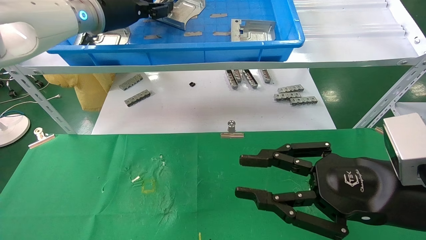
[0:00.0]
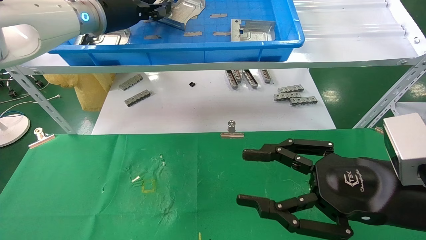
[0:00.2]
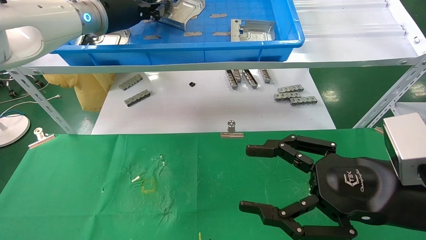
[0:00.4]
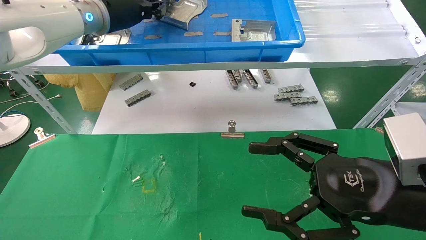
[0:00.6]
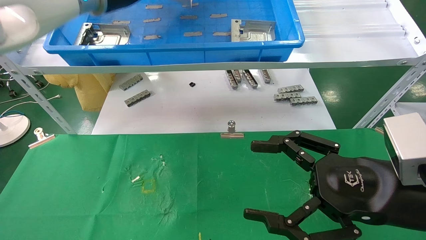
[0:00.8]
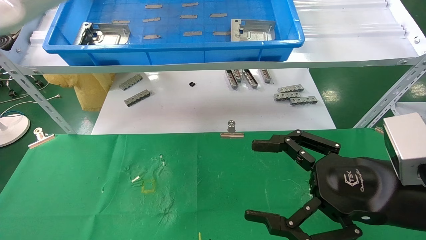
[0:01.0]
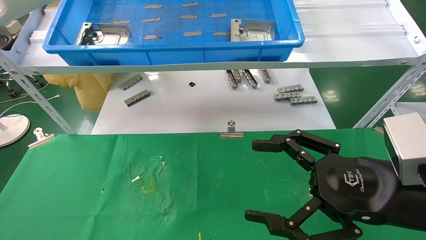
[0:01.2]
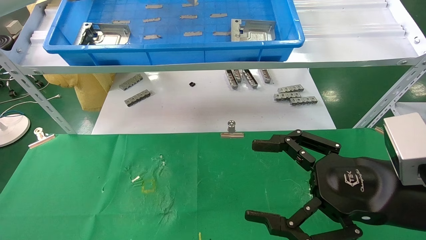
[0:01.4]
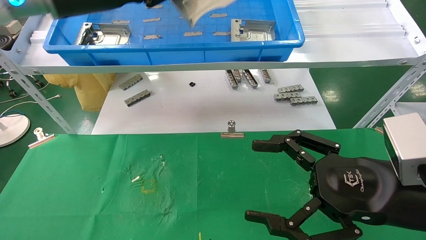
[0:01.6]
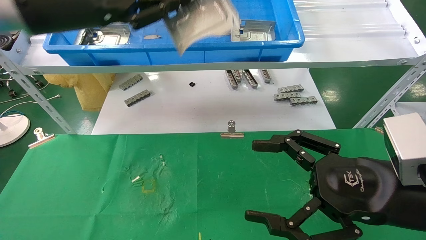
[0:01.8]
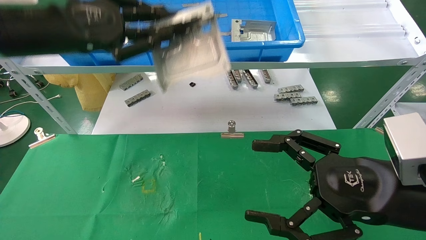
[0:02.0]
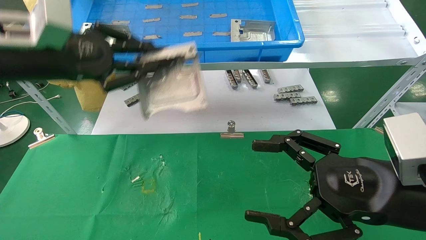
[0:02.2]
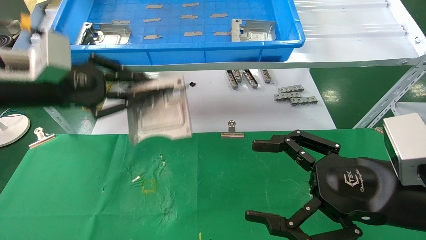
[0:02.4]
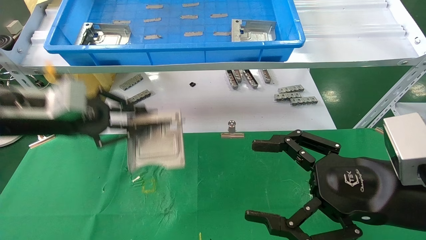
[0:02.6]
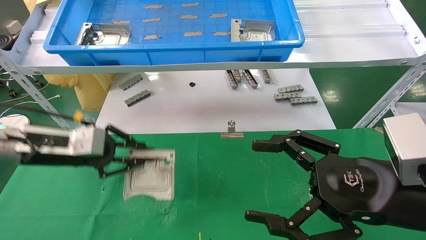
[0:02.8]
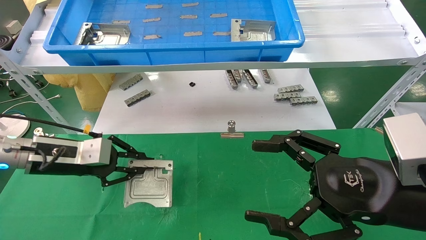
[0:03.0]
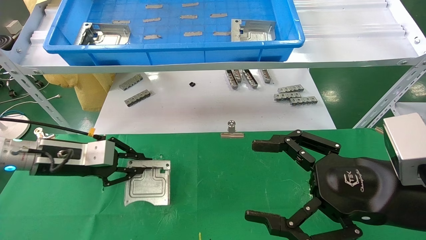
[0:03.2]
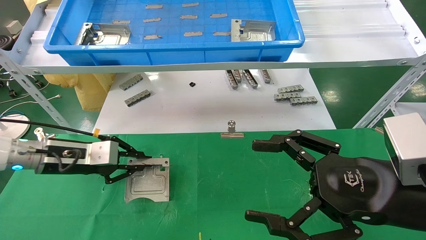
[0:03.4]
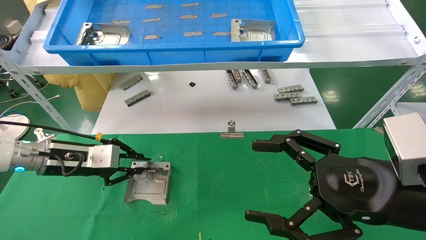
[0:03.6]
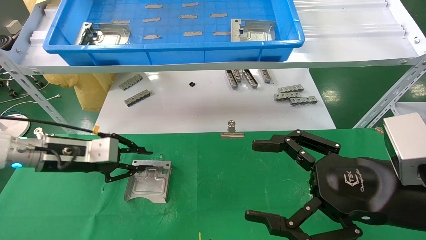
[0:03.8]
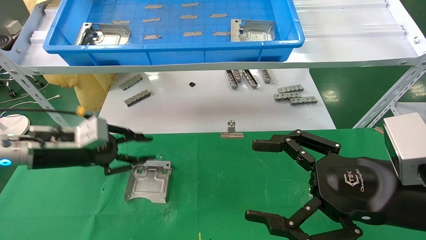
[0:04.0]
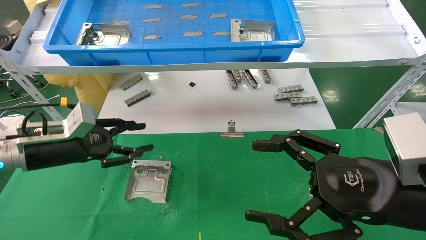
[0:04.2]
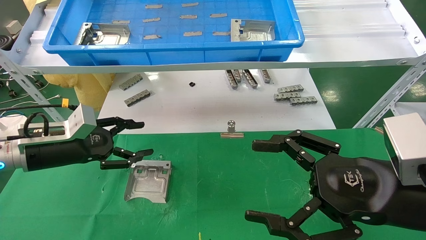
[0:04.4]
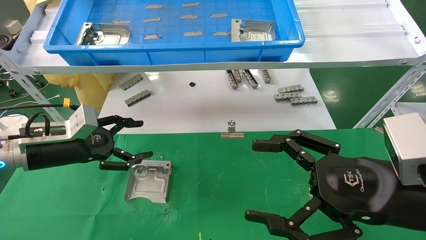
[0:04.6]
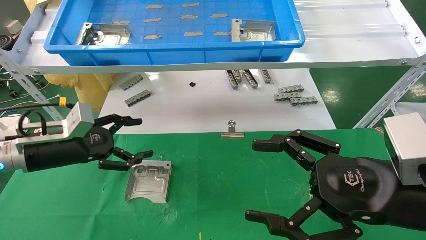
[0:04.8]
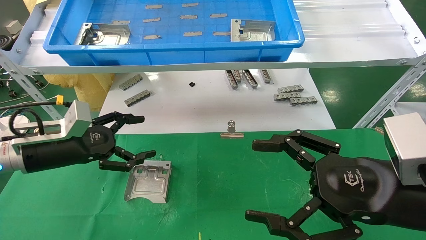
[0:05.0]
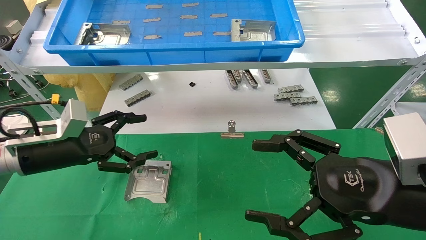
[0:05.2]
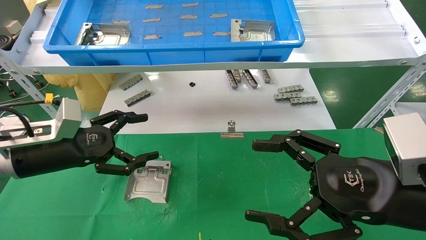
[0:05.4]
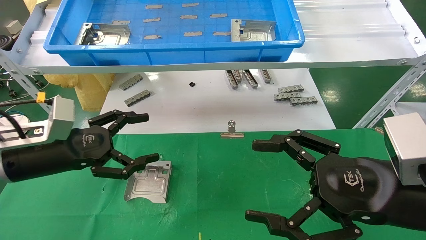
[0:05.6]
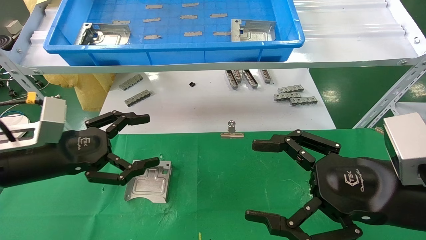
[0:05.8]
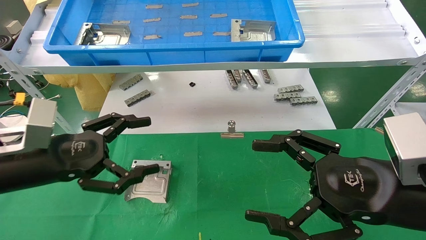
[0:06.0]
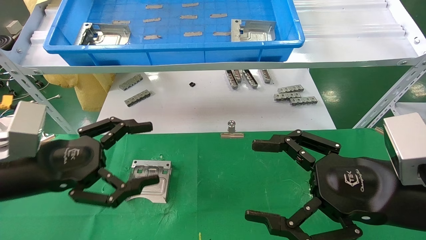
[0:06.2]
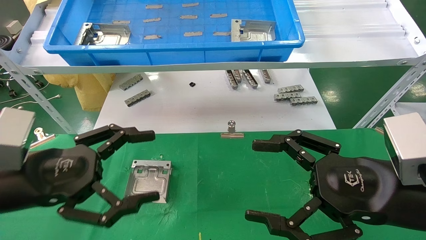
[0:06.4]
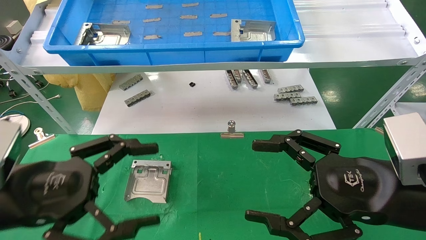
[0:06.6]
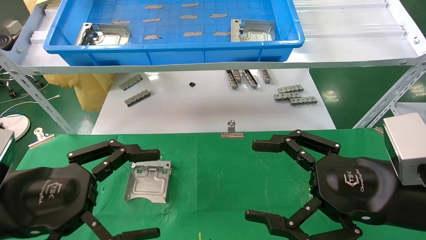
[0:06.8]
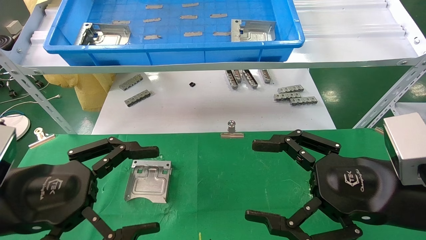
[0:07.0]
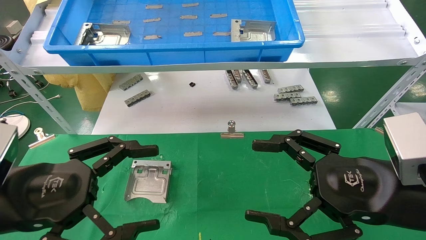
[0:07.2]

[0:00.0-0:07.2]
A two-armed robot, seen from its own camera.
Task of the whole recording: use the mechanical arm to pick up the parts and place them on the table.
Step, 0:00.6 to 0:04.0: Place the hard drive bracket into the box.
0:00.0 to 0:01.4: The right gripper opens its fingers. Meanwhile the left gripper heads backward, covering approximately 5 cm, and closes its fingers.
0:01.4 to 0:02.8: The left gripper is displaced downward and to the left by approximately 25 cm.
0:02.8 to 0:04.4: The left gripper opens its fingers.
0:04.4 to 0:05.8: The left gripper goes about 5 cm backward, and opens up.
0:05.8 to 0:07.2: The left gripper shifts about 10 cm backward.
